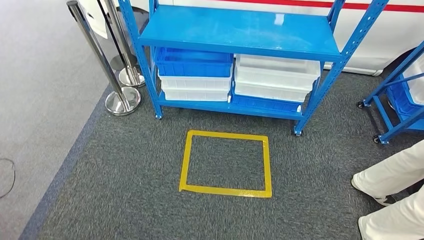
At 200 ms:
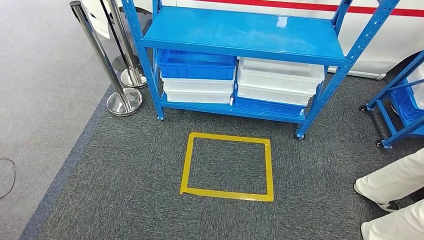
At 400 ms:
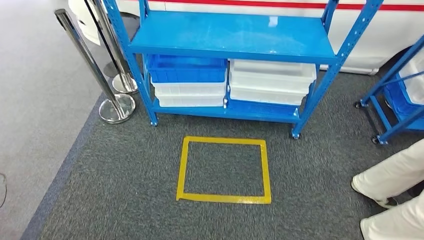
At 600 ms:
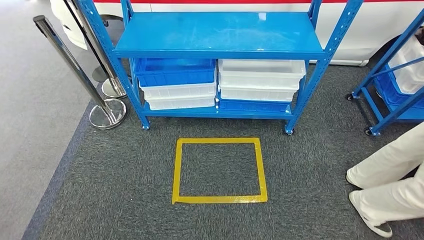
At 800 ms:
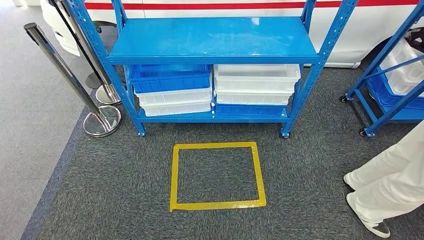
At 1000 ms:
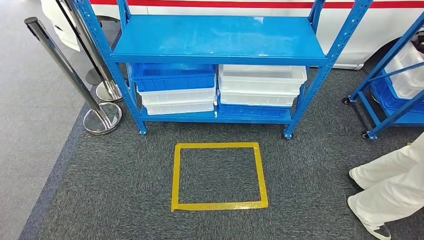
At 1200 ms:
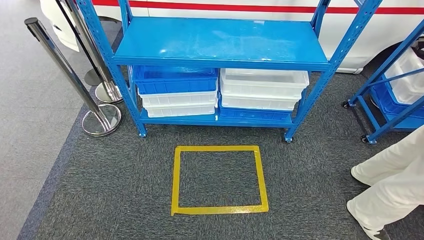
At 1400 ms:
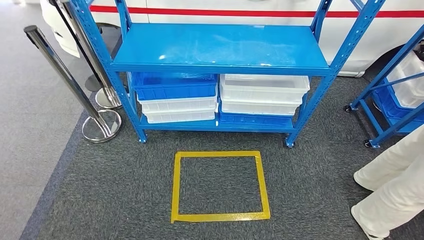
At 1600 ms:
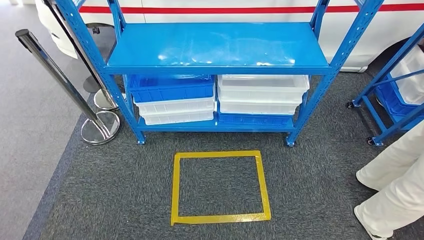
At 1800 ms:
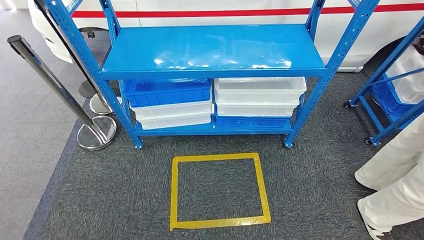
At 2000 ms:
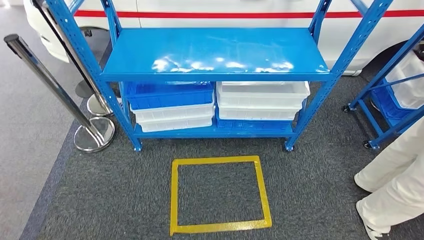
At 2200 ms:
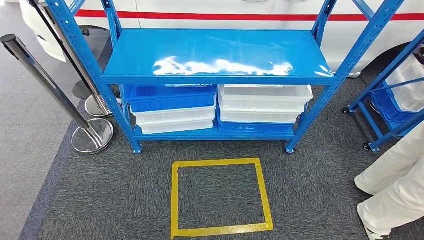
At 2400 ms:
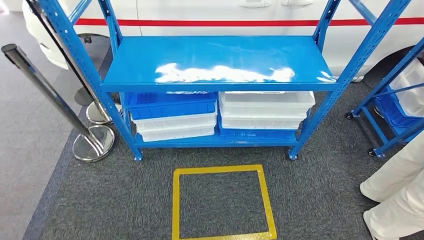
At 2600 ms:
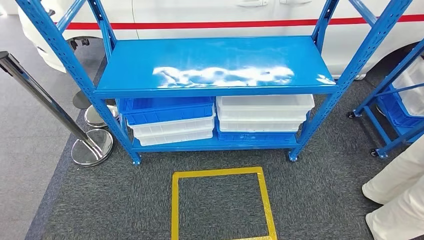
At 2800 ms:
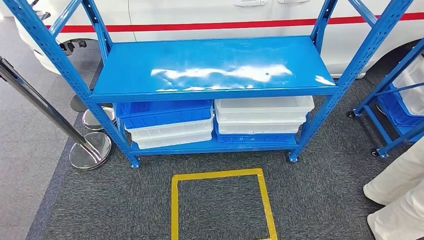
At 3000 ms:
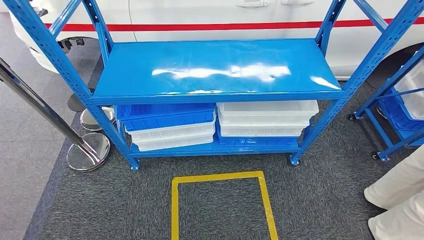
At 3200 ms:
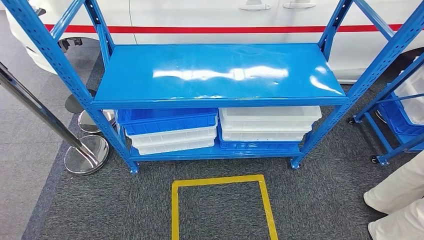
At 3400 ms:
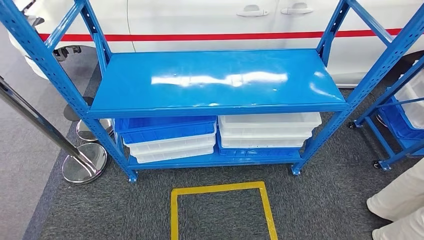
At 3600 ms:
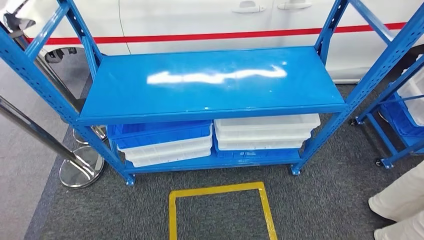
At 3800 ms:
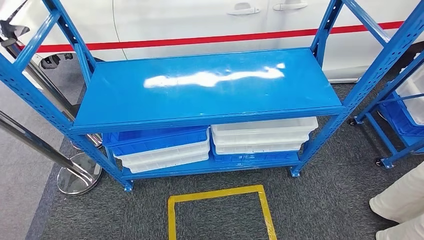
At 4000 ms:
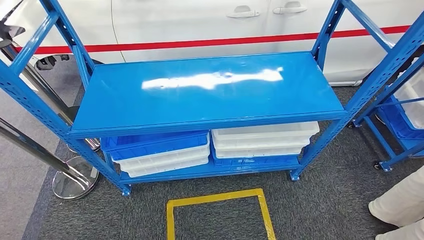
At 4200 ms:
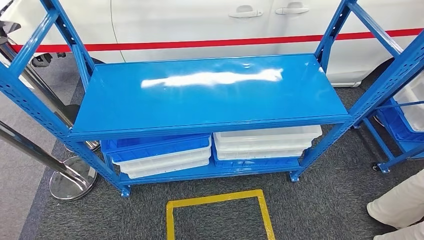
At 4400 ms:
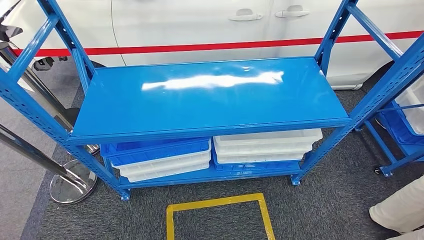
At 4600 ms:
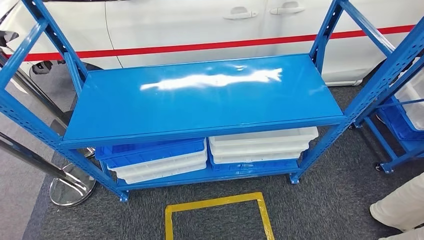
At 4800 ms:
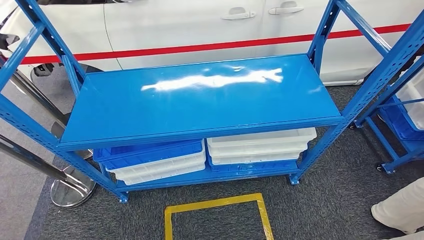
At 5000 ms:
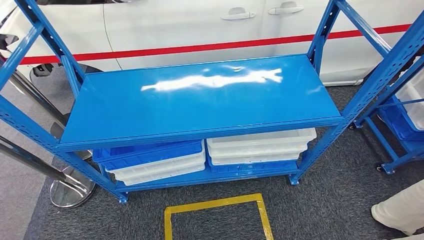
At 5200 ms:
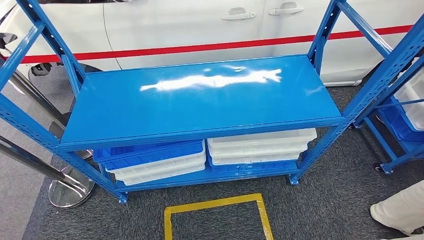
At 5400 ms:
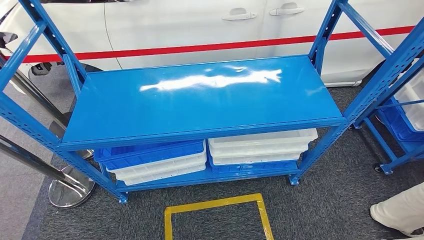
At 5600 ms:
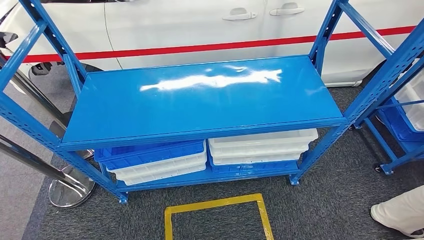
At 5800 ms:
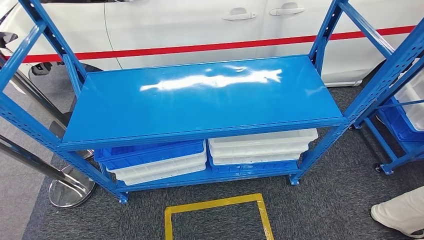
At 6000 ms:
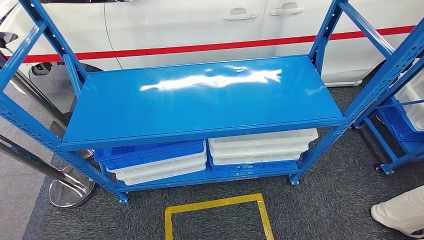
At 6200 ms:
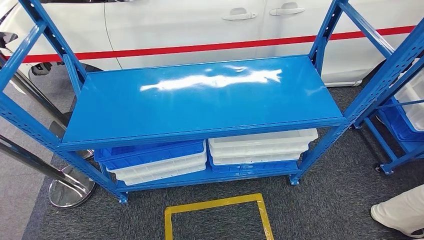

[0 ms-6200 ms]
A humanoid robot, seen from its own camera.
Step, 0 ms to 6200 ms: Move to the initial position of the shelf.
4600 ms to 6200 ms: The hands stay close to where they were, moving slightly.
